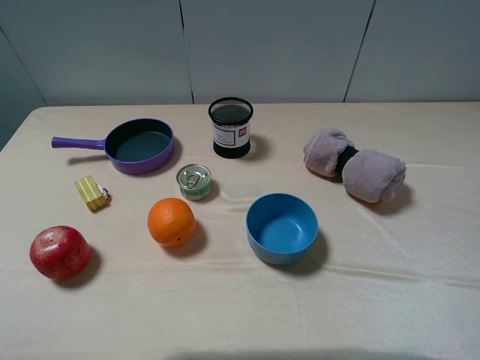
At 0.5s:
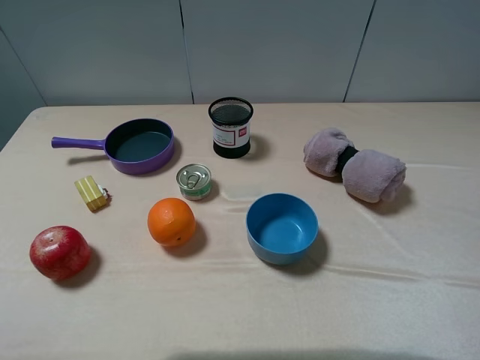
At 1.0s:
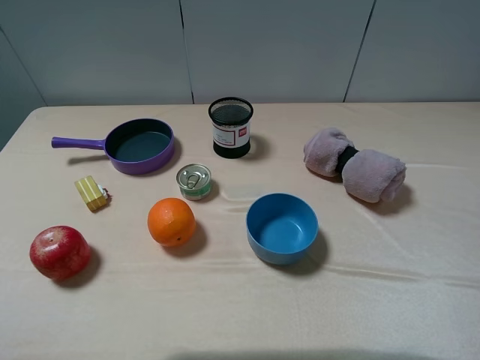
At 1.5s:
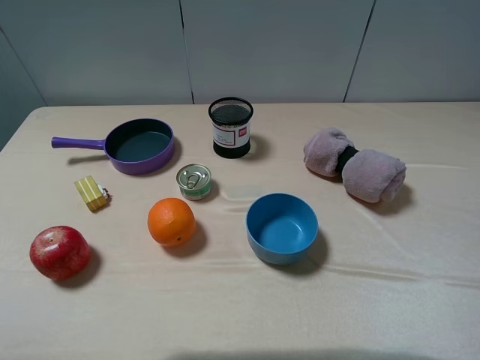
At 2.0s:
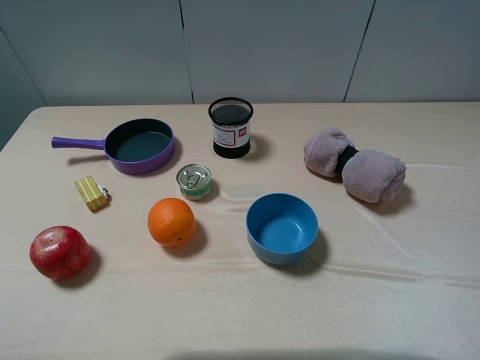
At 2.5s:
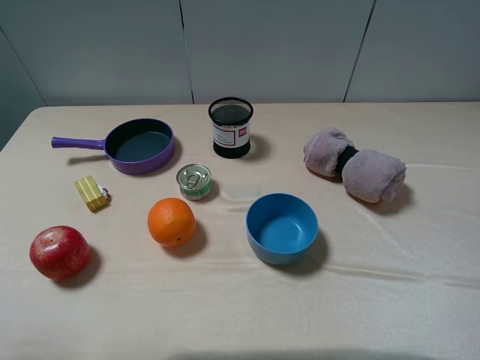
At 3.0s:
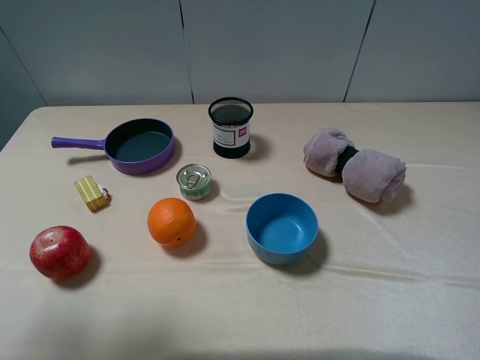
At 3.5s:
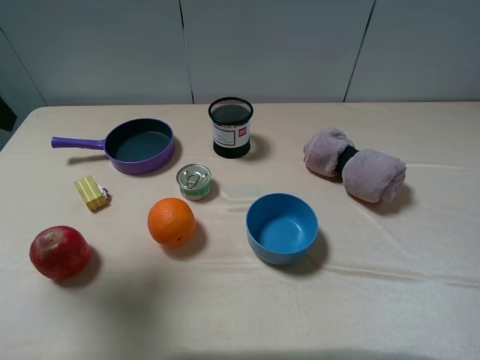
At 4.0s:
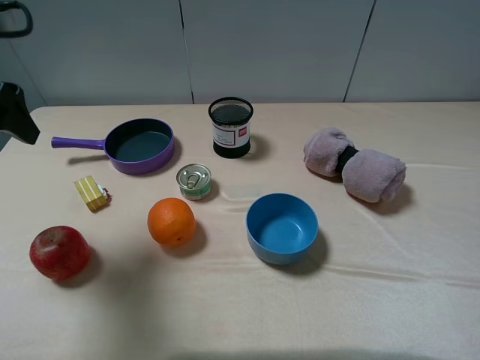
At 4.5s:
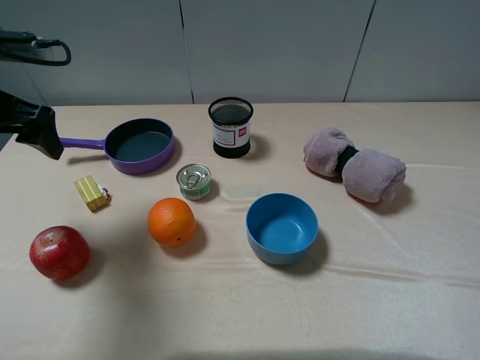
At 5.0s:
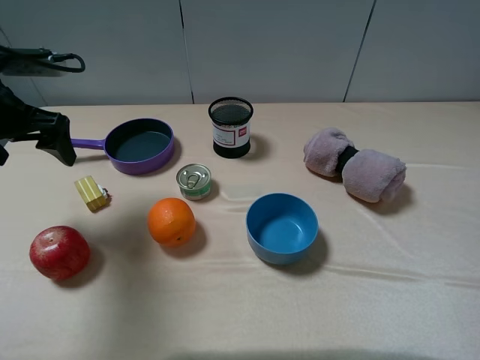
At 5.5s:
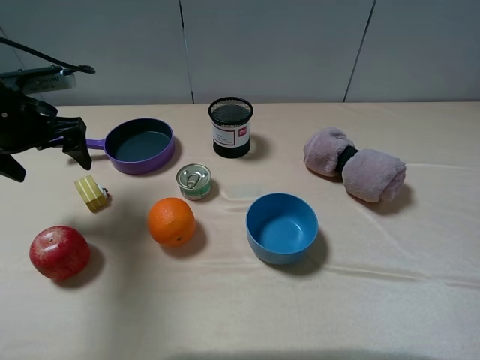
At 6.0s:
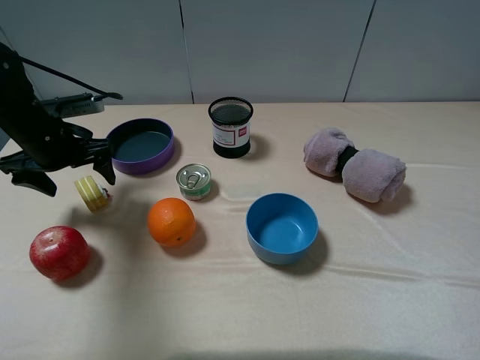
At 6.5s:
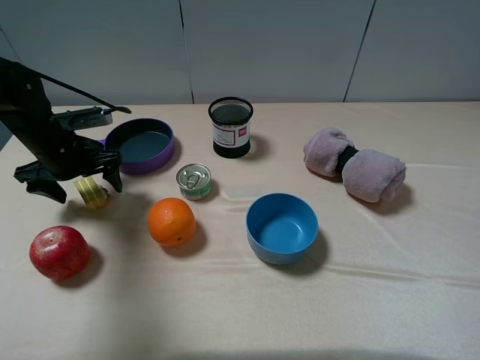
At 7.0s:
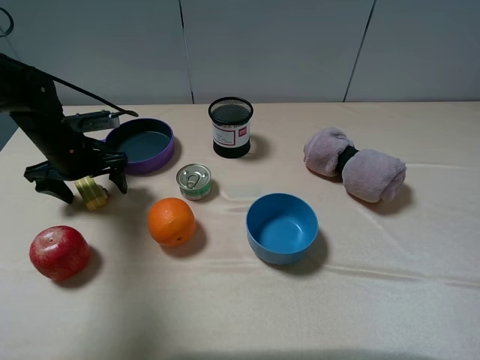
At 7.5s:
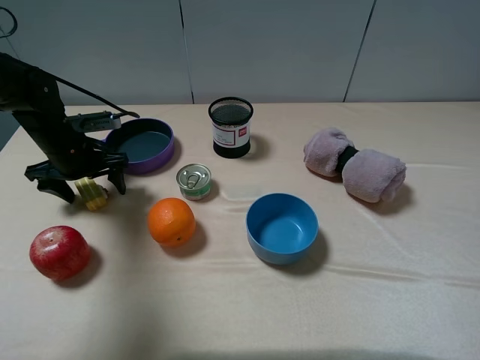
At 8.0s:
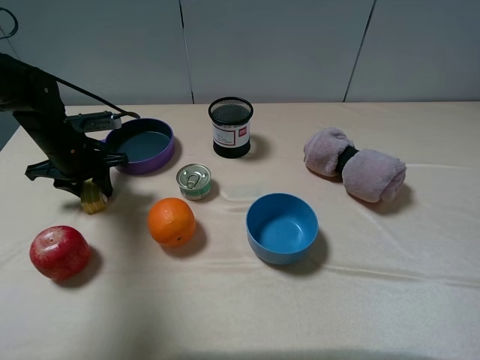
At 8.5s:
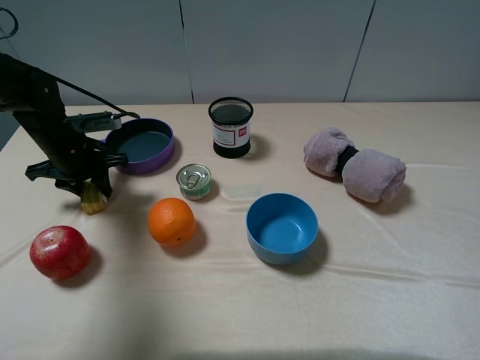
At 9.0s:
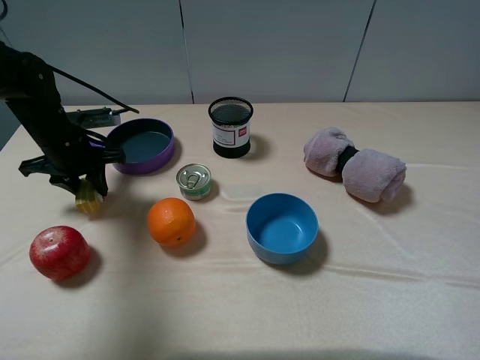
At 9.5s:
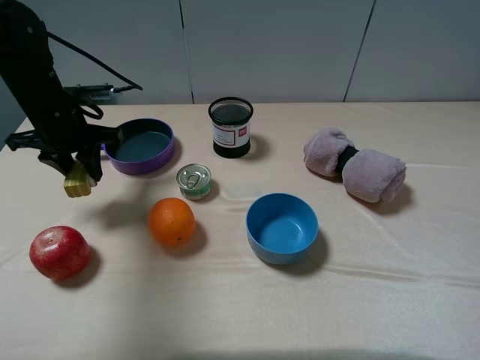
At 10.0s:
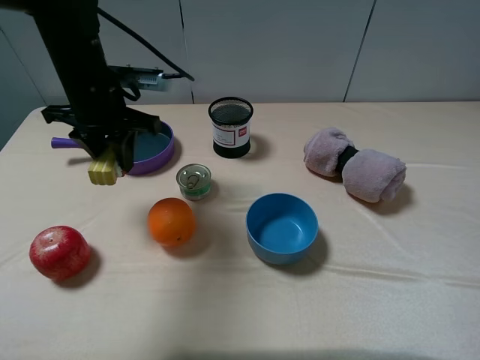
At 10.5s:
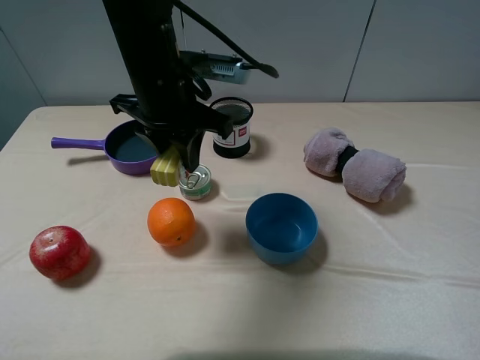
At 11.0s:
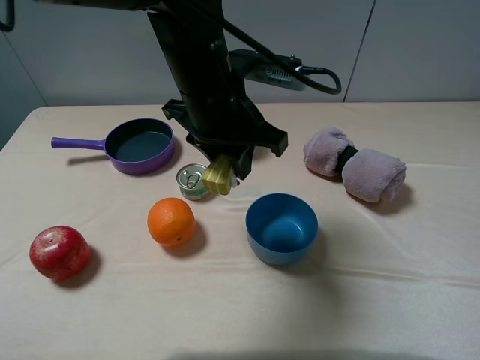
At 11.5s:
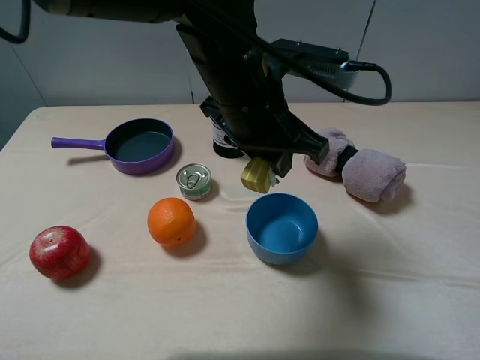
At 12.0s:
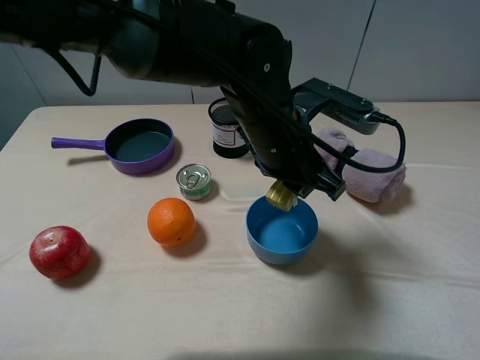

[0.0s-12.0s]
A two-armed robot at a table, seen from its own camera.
Task of the whole recording: pick up an item with a gripper and place it in a random container on the table.
Step, 0.0s to 8.0s: Grasp the yellow cake with the left gripper.
2.0s to 4.0s: The left gripper heads forward, covering approximately 25 cm.
4.0s to 6.0s: The left gripper shifts approximately 15 cm downward and forward.
6.0s to 8.0s: The left gripper ends up about 5 cm from where it was, and closes.
8.0s to 10.0s: The left gripper is displaced upward and to the right by about 15 cm.
10.0s to 12.0s: The left gripper shifts roughly 20 cm to the right.

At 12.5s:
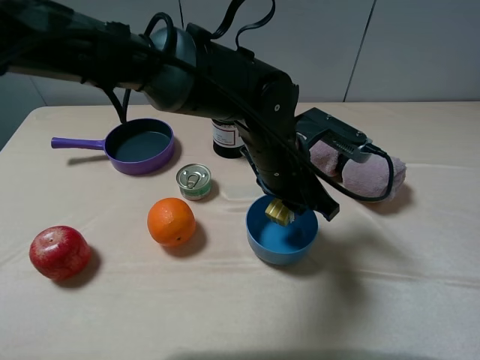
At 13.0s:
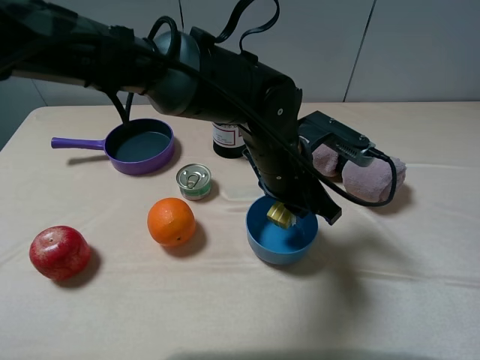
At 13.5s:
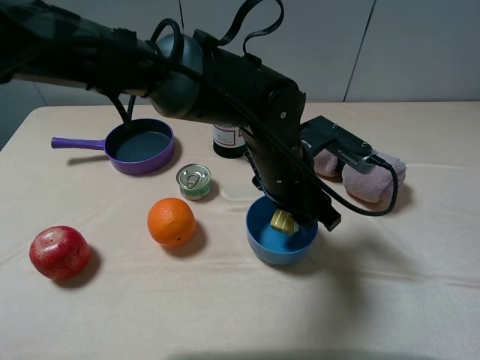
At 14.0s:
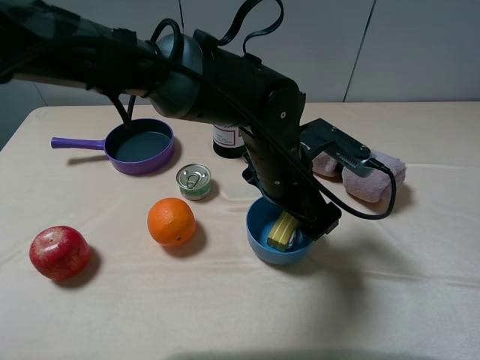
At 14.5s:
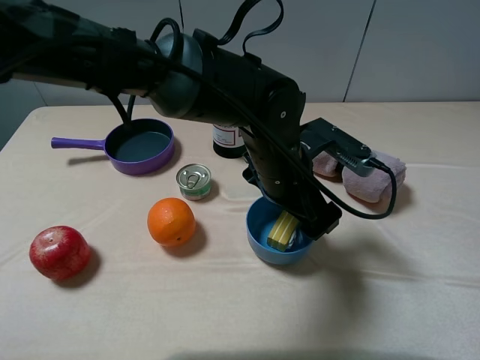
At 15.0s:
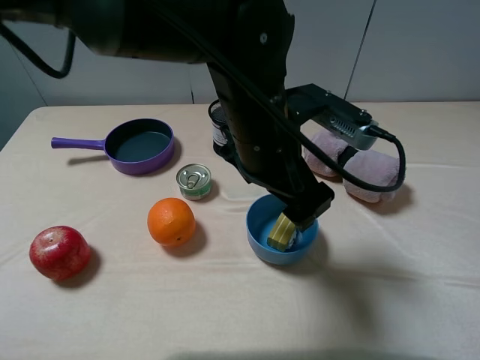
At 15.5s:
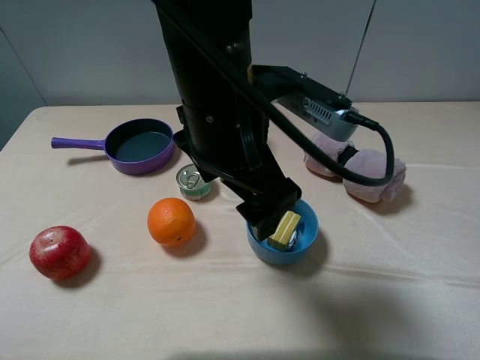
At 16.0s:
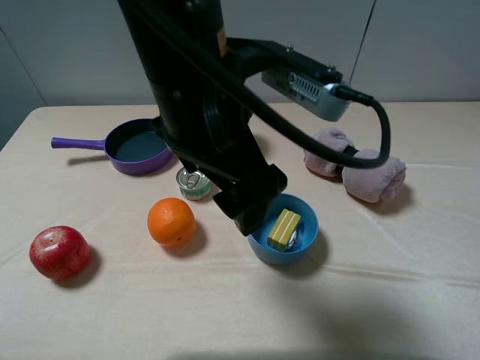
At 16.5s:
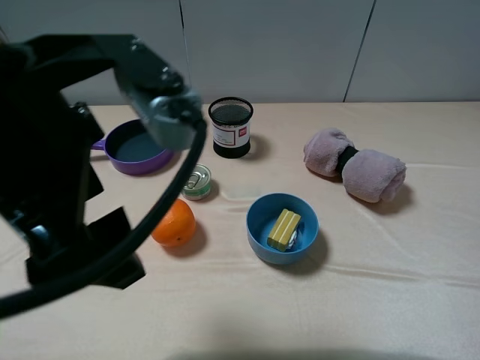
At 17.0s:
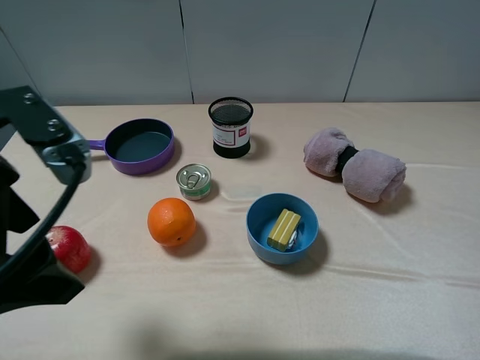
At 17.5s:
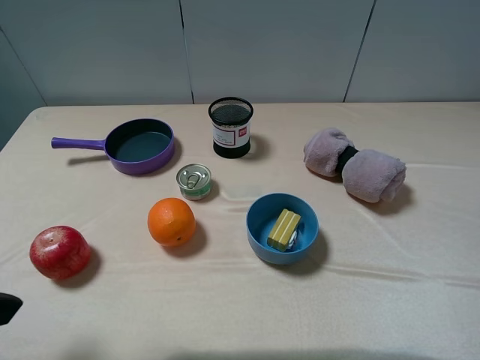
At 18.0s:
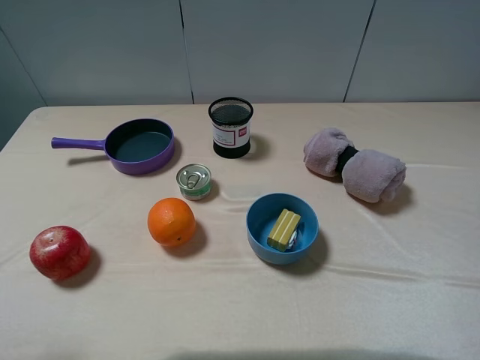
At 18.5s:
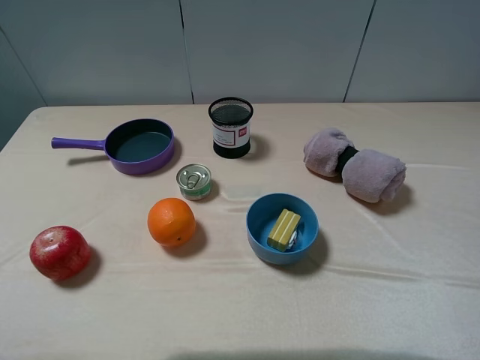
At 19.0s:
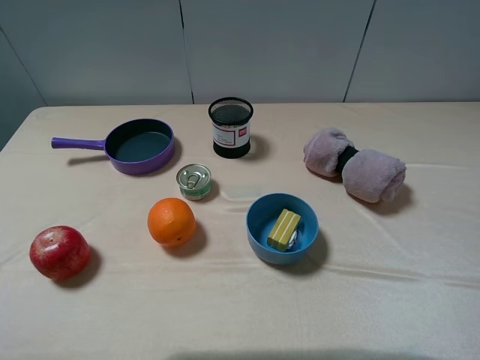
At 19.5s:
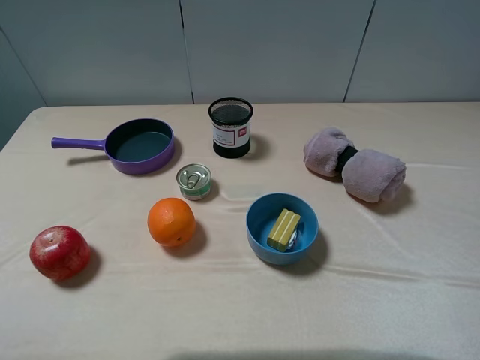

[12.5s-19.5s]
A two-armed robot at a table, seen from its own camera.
Task of the whole recording: pick up an item with a gripper and place it in a random container on the table.
12.5s to 14.5s: The left gripper opens up.
14.5s to 16.0s: The left gripper shifts roughly 15 cm upward, to the left and backward.
16.0s to 17.5s: The left gripper moves to the left and backward, some 25 cm.

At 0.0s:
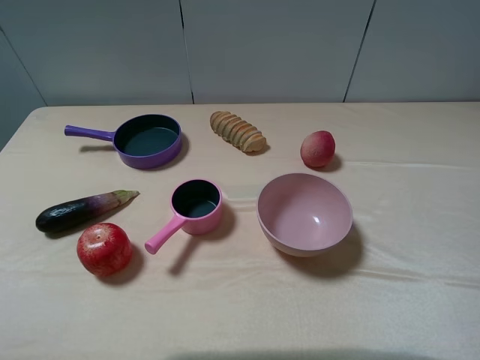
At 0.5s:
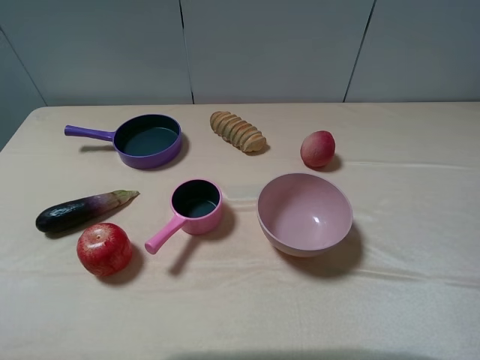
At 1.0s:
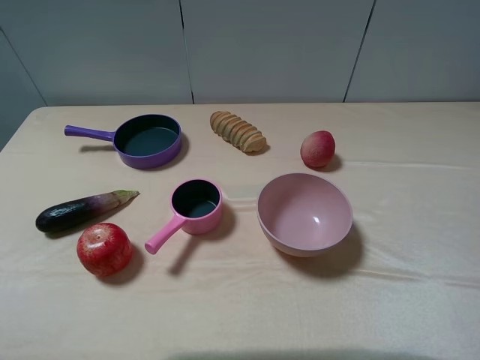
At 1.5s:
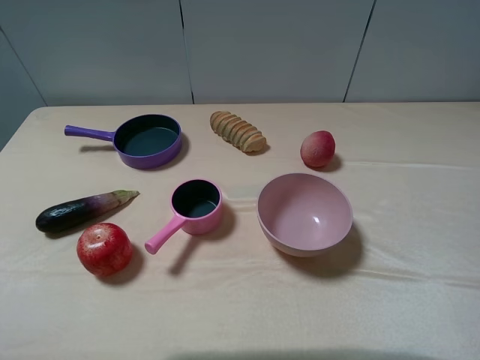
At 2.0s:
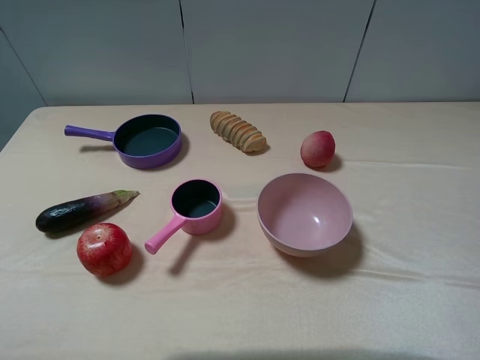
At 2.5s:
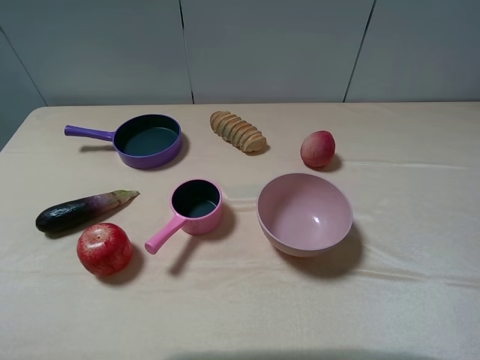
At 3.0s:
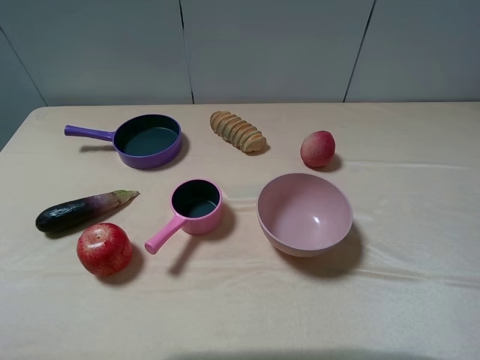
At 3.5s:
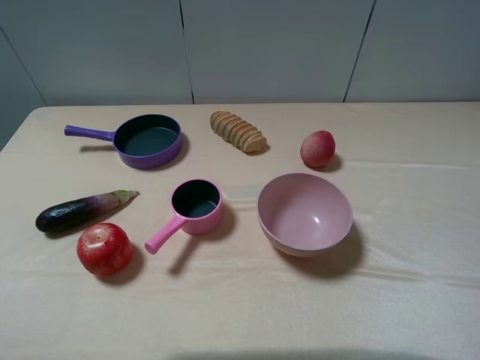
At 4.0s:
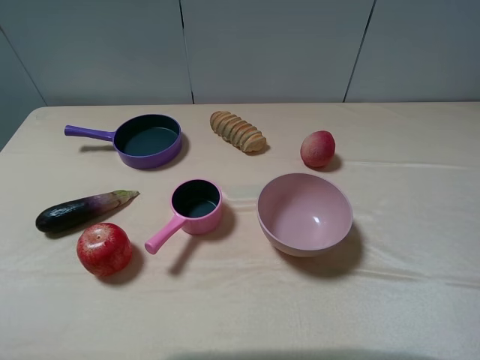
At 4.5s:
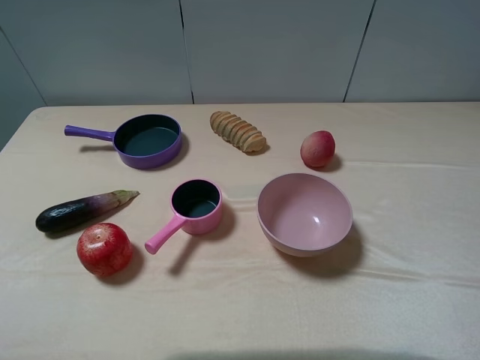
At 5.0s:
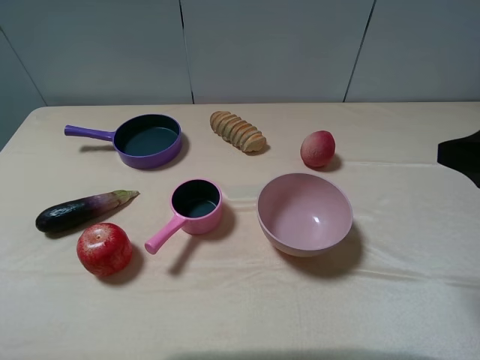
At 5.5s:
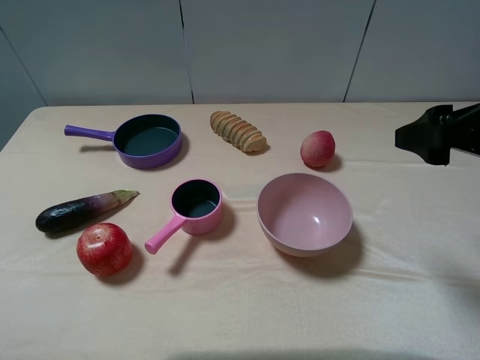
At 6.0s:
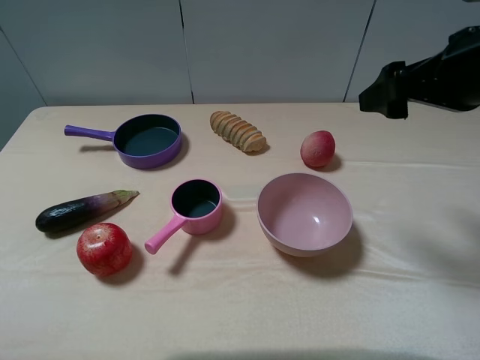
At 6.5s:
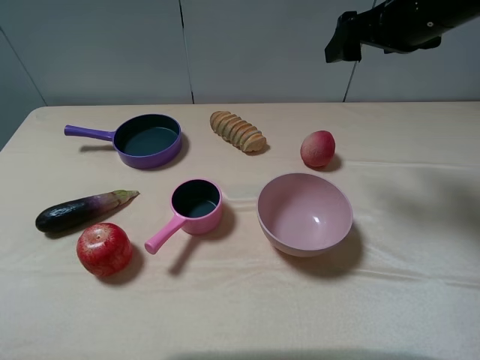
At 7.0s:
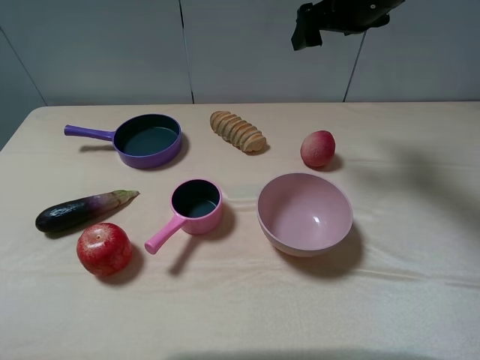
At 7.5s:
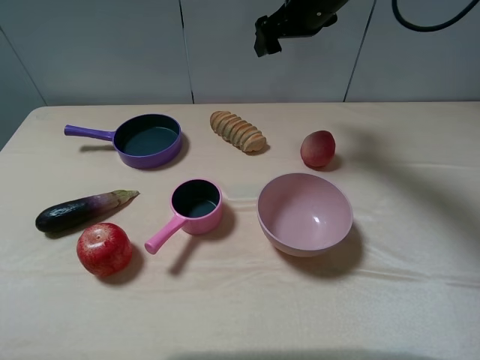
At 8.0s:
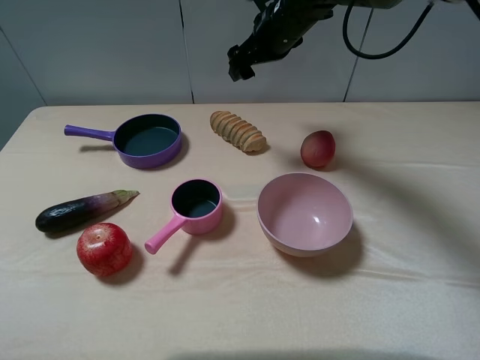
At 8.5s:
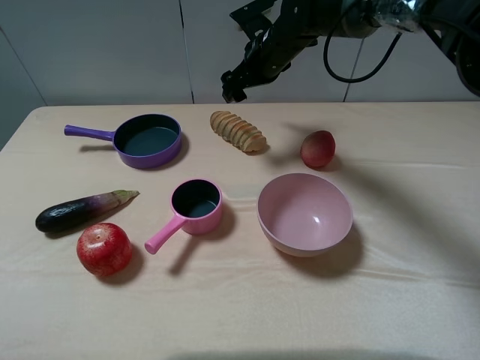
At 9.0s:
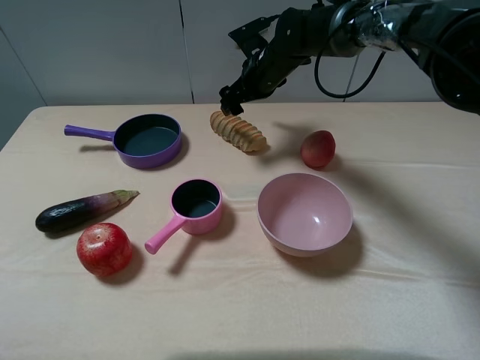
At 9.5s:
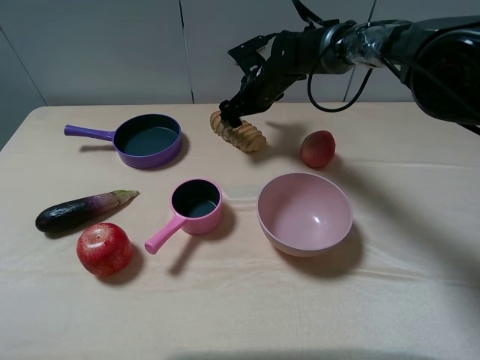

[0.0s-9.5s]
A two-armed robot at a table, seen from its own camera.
Task of the whole recording: pick up an item with a gripper and place it in a random container on the table.
4.0s to 5.5s: The right gripper goes about 15 cm forward.
5.5s to 7.5s: The right gripper goes some 30 cm forward and to the left.
7.5s to 9.5s: The right gripper heads downward, covering roughly 15 cm.
